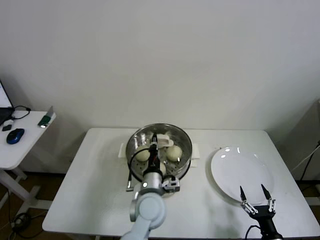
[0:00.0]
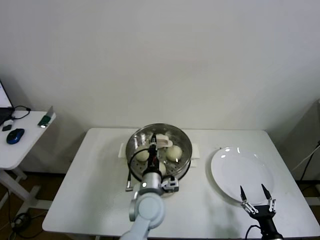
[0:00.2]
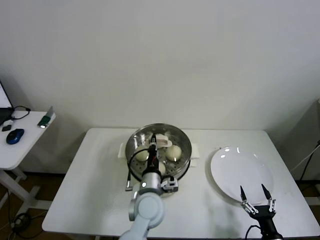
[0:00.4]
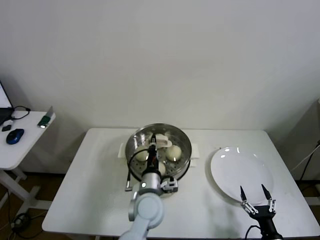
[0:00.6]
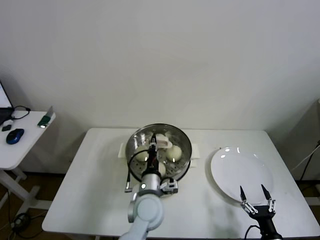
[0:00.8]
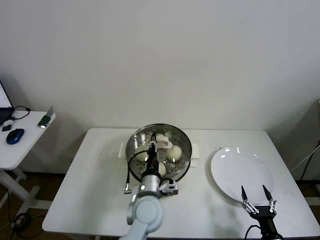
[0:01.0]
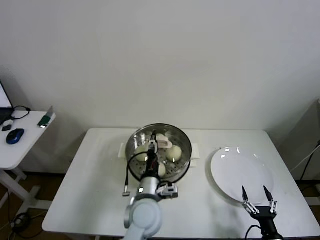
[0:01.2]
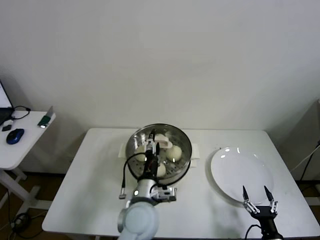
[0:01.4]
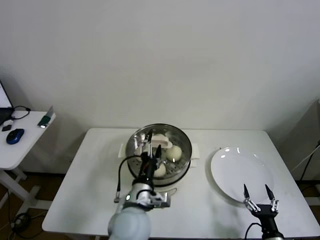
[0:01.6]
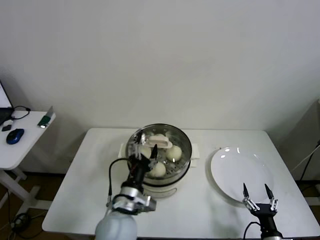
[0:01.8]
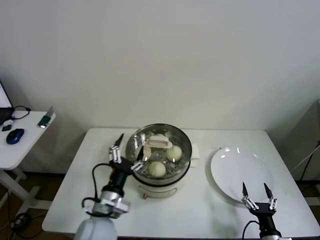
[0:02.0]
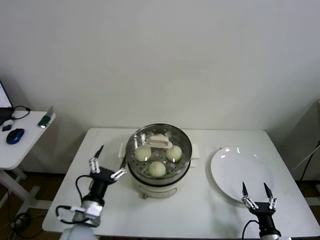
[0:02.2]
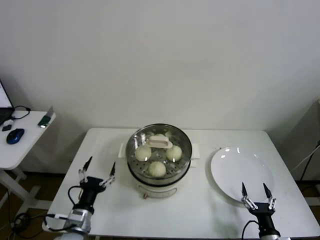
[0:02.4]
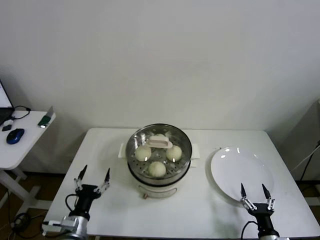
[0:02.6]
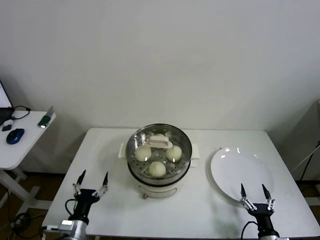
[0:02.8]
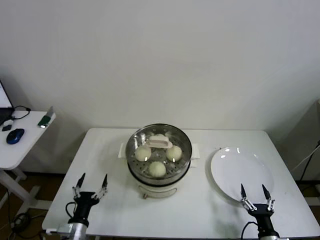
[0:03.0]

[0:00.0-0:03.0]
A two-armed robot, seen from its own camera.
0:00.0 to 0:01.6: The left gripper ends up roughly 5 cm from where it was, and opens up.
0:01.6 to 0:03.0: The left gripper is displaced to the left and downward by about 25 cm.

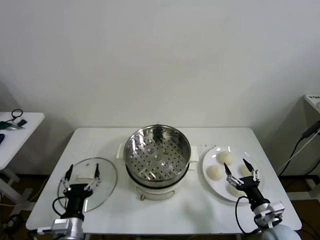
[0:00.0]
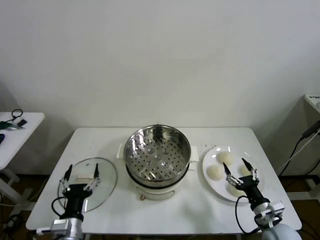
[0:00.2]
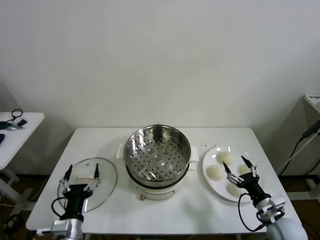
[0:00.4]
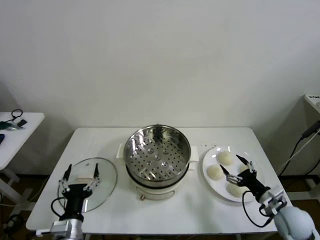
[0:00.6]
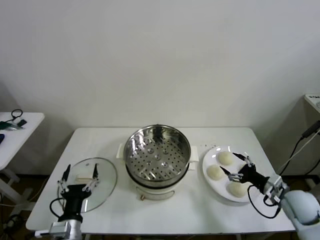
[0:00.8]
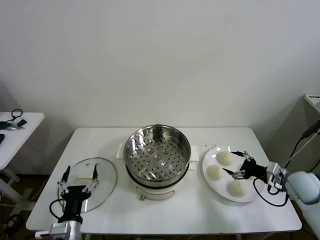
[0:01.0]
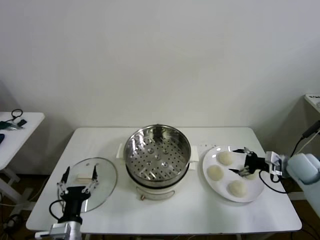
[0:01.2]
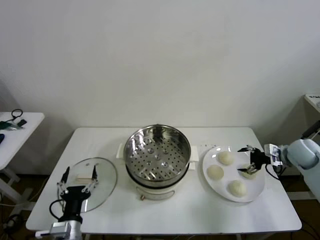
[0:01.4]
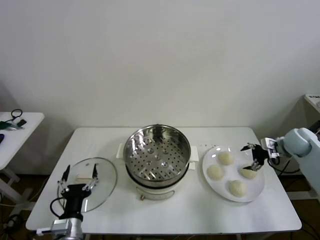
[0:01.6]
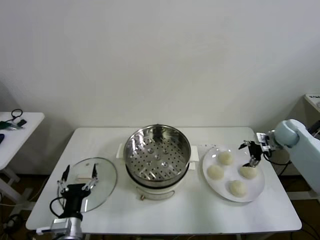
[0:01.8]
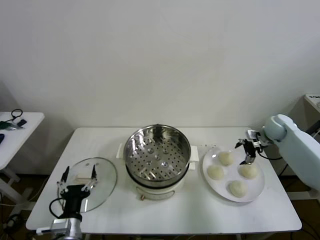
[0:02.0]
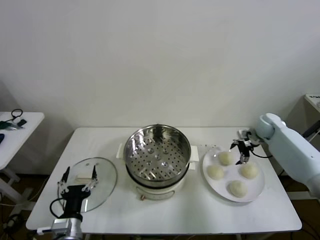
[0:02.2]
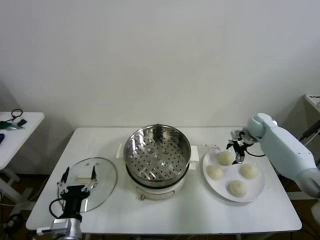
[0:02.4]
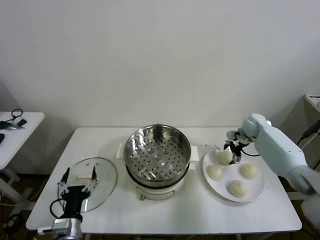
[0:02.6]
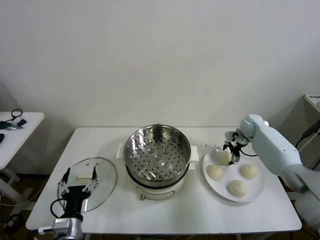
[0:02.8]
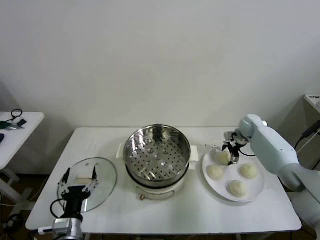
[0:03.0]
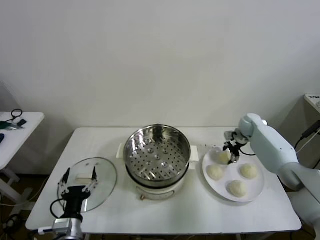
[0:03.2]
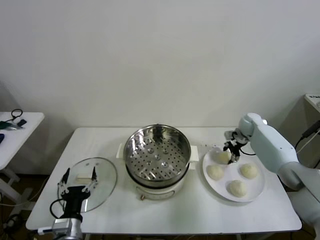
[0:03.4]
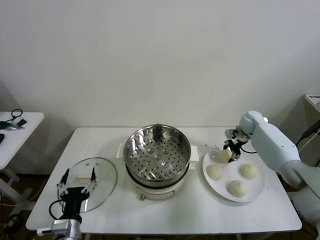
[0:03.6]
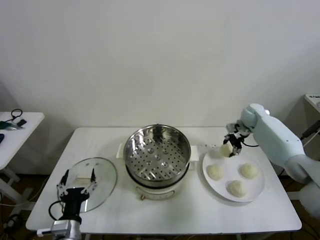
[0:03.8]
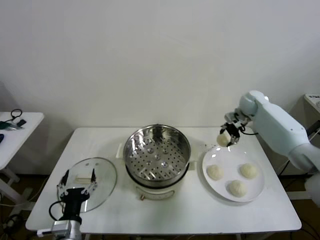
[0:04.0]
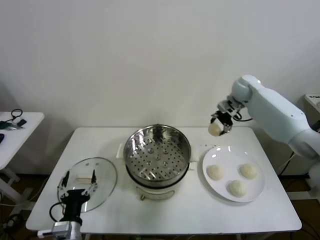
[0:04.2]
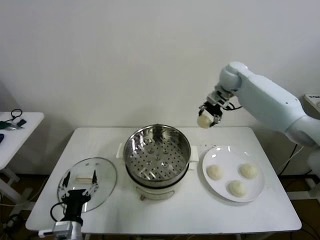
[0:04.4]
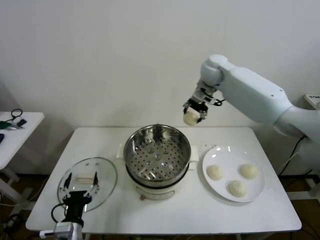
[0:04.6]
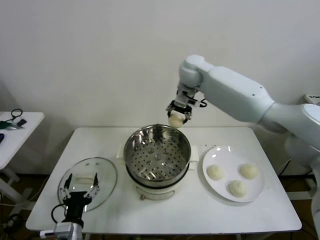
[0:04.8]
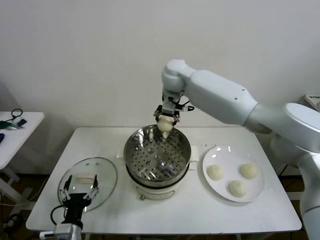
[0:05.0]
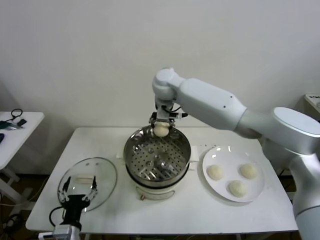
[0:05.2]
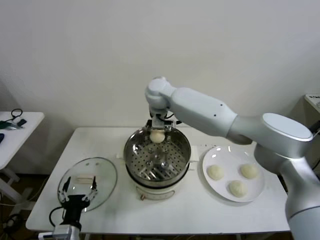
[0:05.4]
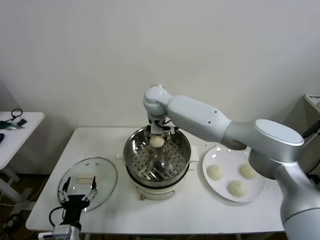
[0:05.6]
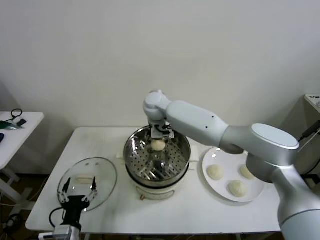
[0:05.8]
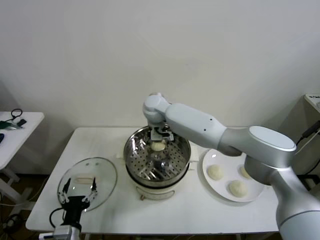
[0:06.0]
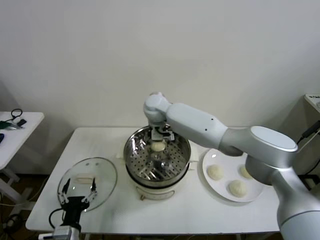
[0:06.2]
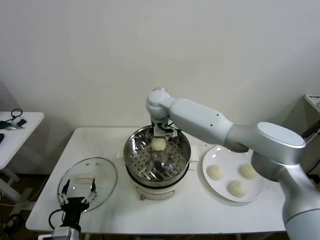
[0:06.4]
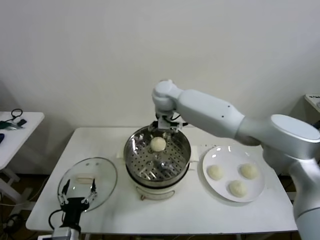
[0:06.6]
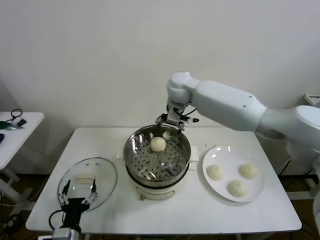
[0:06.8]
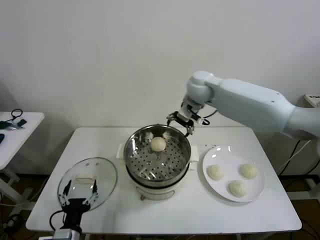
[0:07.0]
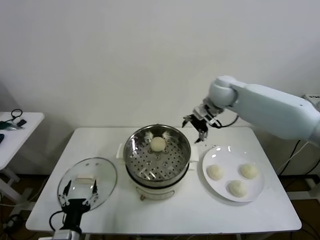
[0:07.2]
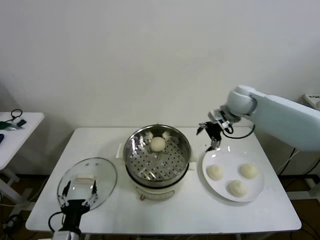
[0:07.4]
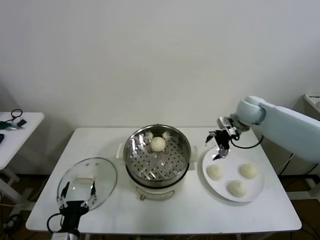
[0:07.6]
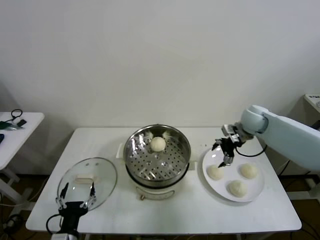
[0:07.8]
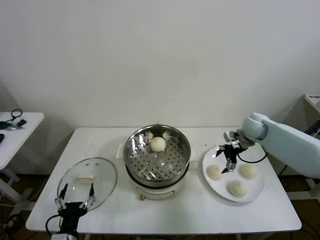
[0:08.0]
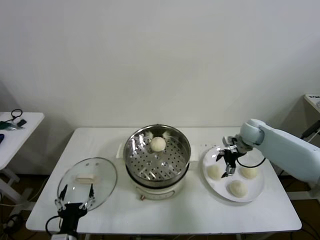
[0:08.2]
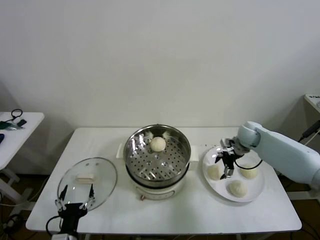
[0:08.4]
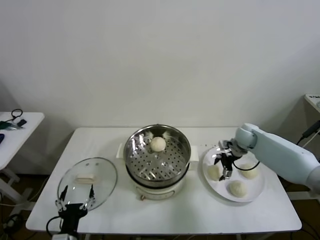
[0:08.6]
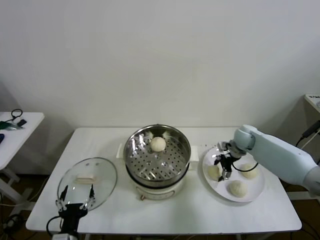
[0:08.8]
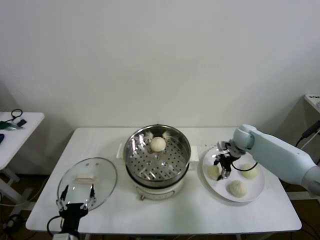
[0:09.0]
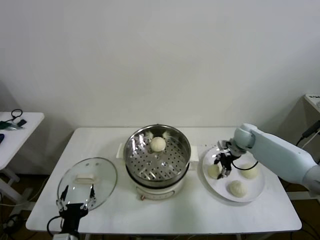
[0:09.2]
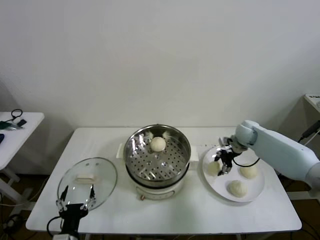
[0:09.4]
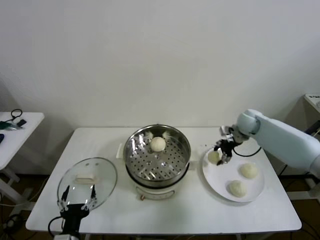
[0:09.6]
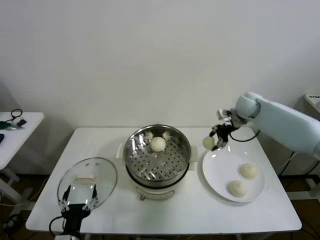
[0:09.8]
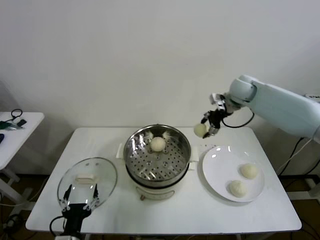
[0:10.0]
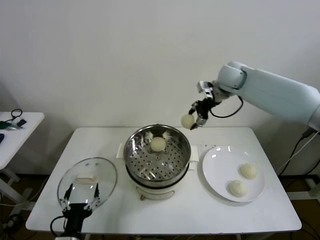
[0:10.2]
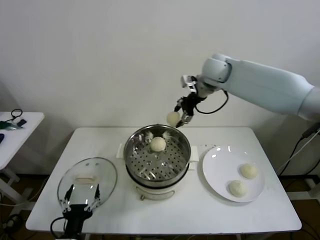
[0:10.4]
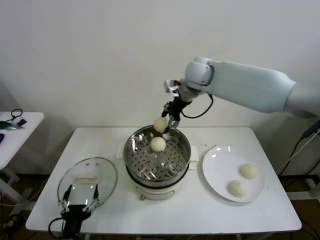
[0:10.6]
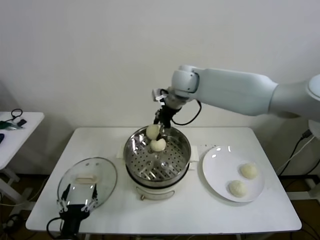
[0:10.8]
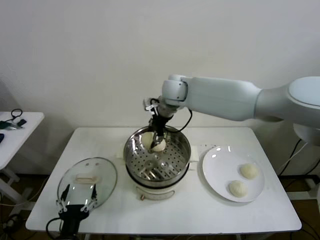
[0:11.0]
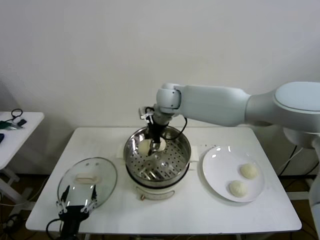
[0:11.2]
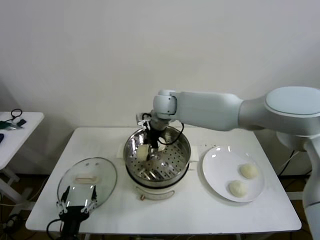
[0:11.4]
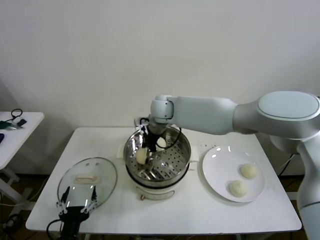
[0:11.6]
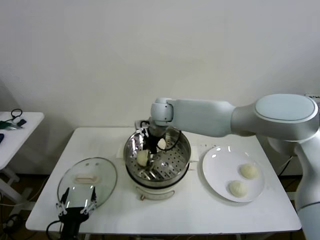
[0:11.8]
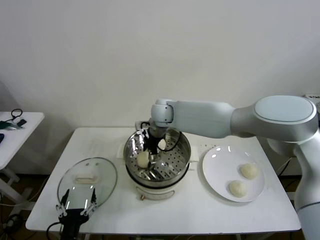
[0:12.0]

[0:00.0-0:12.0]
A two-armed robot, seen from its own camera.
Step, 0:00.0 to 0:03.2: Grasp the baozi in the plate with right gripper.
Step, 0:03.4 to 0:06.2: Place the baozi on the steamer with right gripper.
Step, 0:06.4 to 0:09.0: Grasp the baozi in the plate with right gripper.
0:01.6 to 0:03.0: The right gripper moves forward, to the left and downward, roughly 15 cm.
0:03.0 to 0:04.4: The right gripper is displaced upward and to the left by roughly 30 cm, and closes up.
0:04.4 to 0:06.0: The right gripper moves to the left and downward, about 25 cm, and opens.
0:06.0 to 0:07.6: The right gripper travels to the right by about 35 cm.
0:07.6 to 0:09.0: The right gripper heads downward, covering approximately 15 cm, and closes its fingers.
0:09.0 to 0:10.4: The right gripper is displaced upward and to the left by approximately 35 cm.
0:10.4 to 0:12.0: The right gripper is displaced to the left and downward by roughly 20 cm, and opens its fingers.

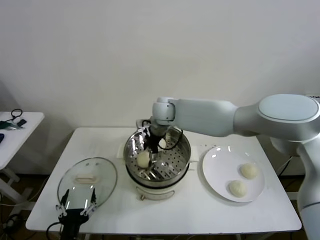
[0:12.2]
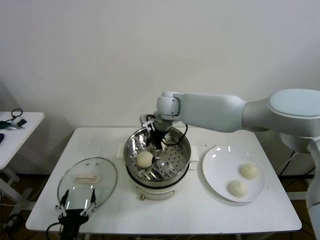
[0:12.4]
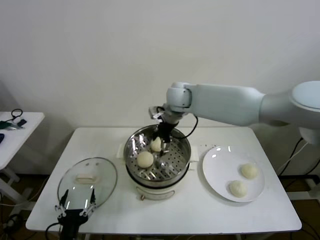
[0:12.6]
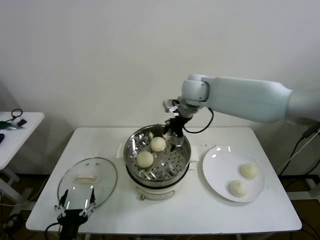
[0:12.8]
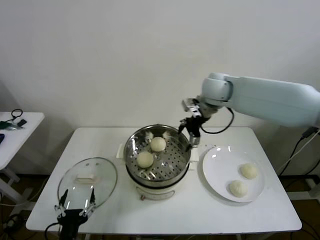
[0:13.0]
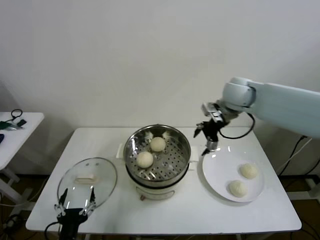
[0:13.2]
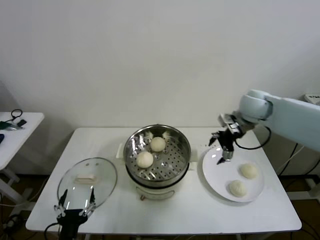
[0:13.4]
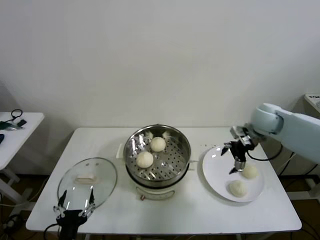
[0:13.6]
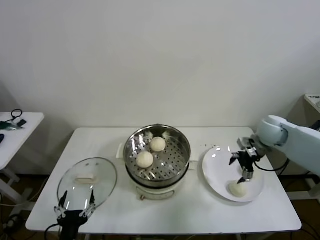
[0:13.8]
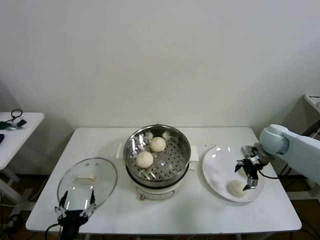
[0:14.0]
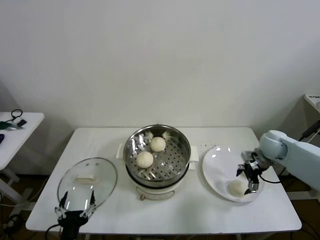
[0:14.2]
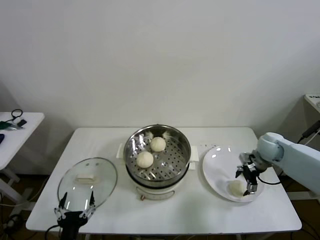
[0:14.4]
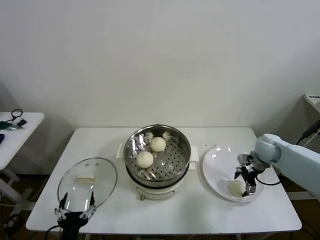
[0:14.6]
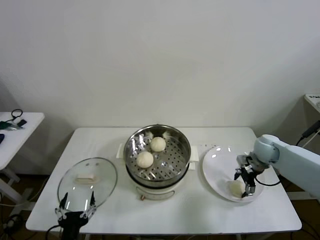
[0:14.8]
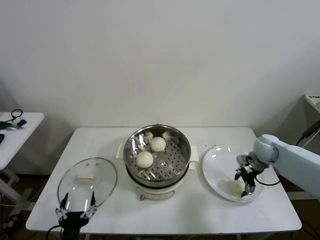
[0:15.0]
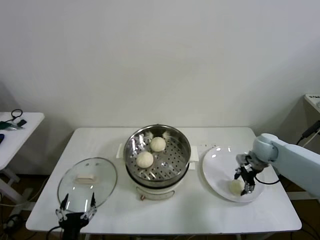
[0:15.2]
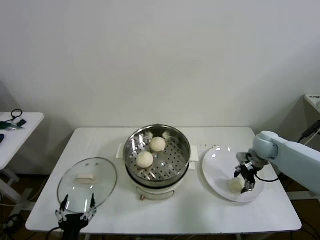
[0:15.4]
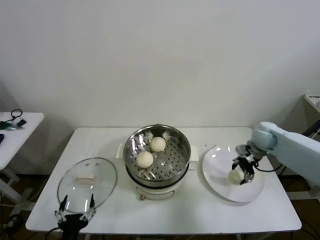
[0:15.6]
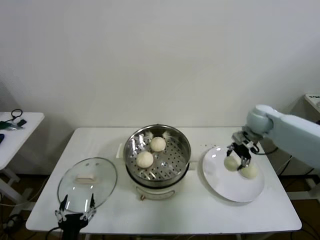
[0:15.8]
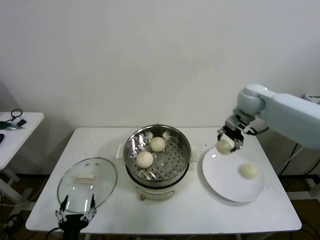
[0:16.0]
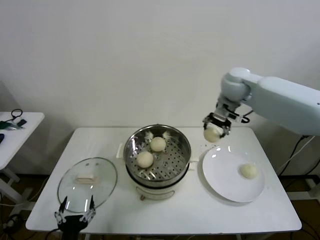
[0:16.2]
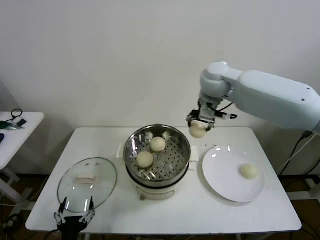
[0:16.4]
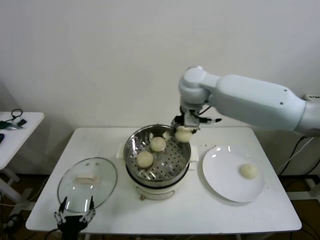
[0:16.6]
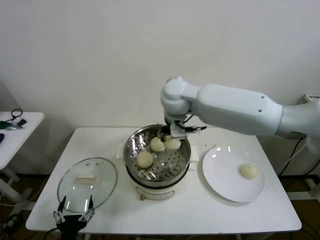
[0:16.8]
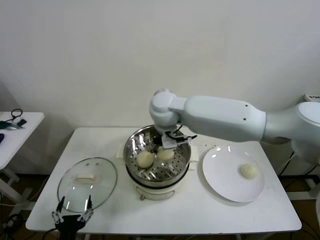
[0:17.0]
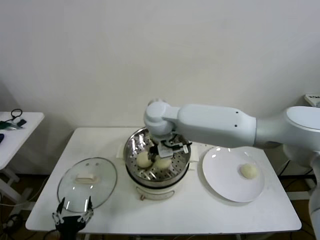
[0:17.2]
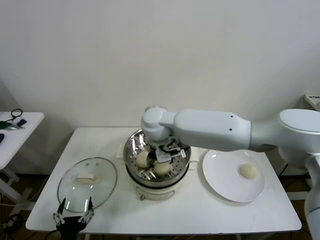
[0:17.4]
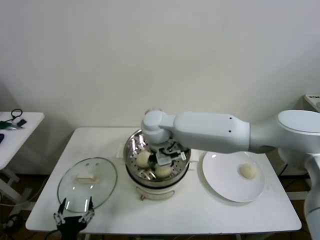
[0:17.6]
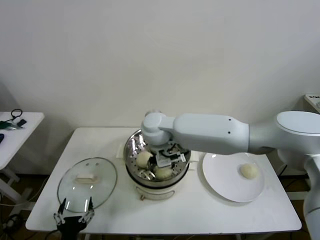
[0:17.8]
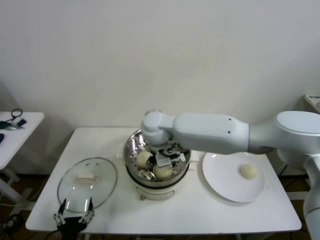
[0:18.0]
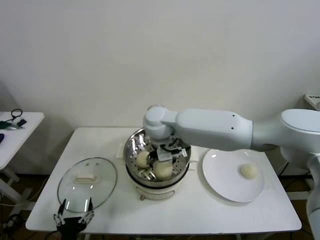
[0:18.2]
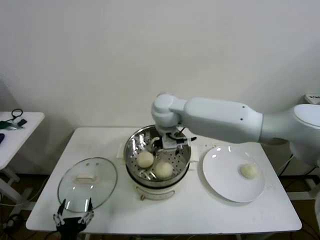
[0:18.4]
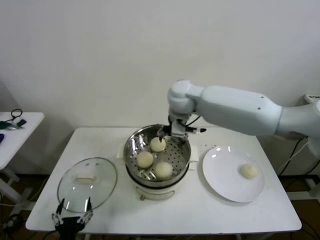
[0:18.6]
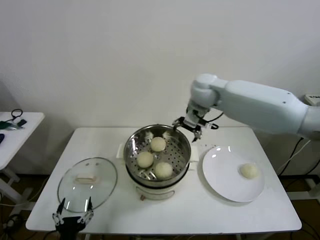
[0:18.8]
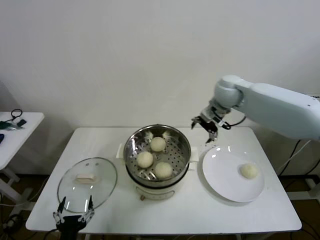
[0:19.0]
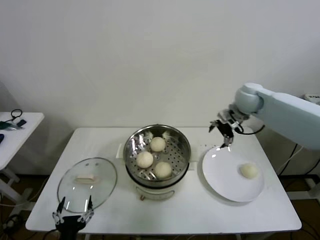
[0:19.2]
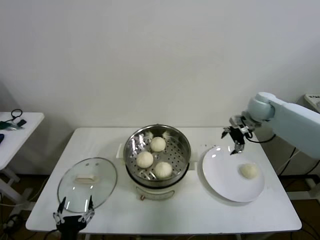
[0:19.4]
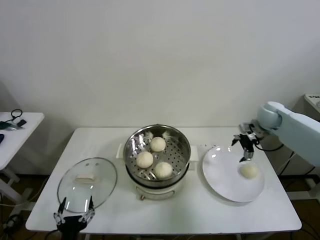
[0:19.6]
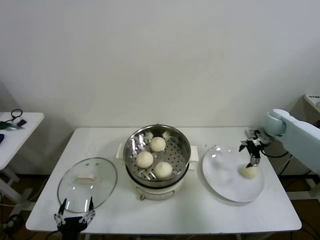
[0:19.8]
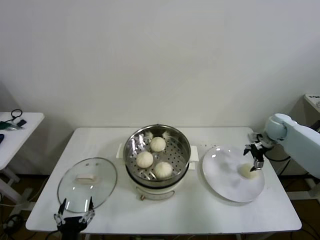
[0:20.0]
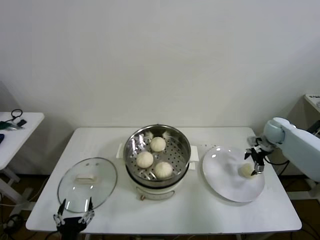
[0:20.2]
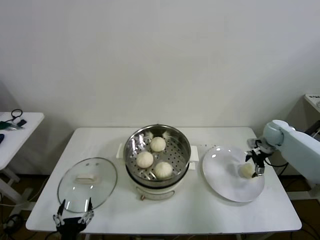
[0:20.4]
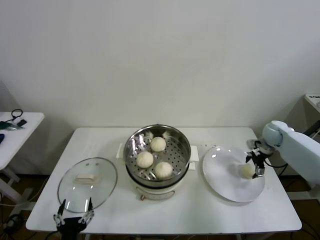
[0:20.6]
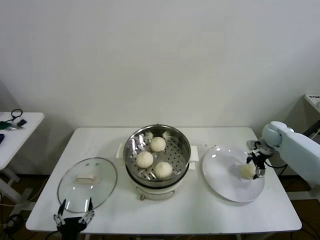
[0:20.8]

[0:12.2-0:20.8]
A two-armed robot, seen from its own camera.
Step, 0:12.2 to 0:15.0: Grasp the baozi in the plate with right gripper.
Step, 0:15.2 to 0:17.8: Place the baozi on the steamer with right gripper.
0:12.2 to 0:13.6: The right gripper goes about 35 cm to the right.
0:13.6 to 0:15.0: The right gripper moves downward, about 10 cm, and closes.
0:15.0 to 0:16.6: The right gripper goes roughly 40 cm to the left and upward.
0:16.6 to 0:18.0: The right gripper heads downward and to the left, covering about 15 cm, and opens.
0:18.0 to 0:19.4: The right gripper shifts some 40 cm to the right.
0:19.4 to 0:20.8: The right gripper moves downward and to the right, some 15 cm.
